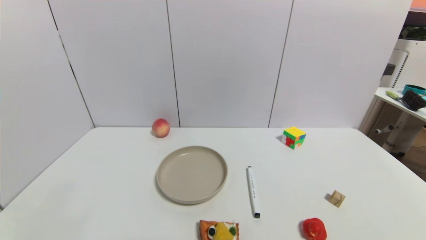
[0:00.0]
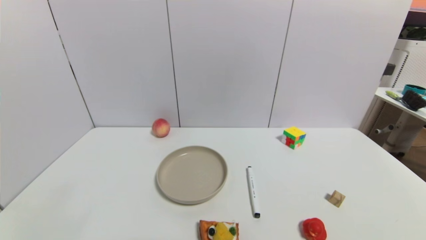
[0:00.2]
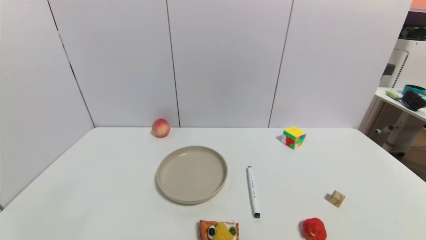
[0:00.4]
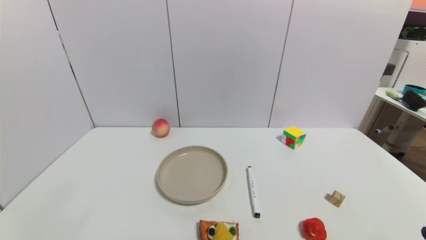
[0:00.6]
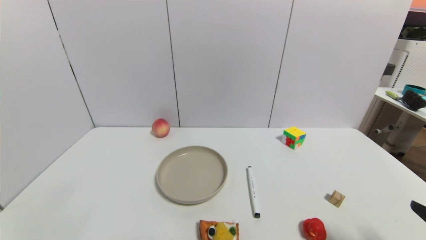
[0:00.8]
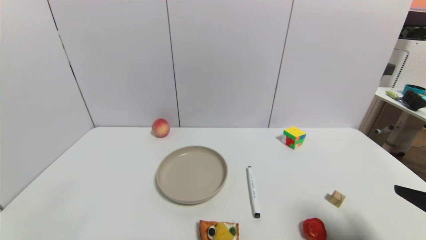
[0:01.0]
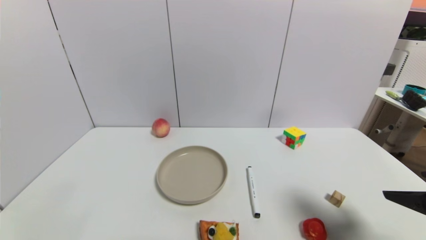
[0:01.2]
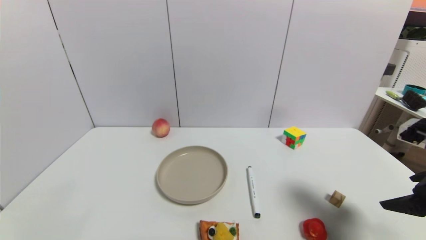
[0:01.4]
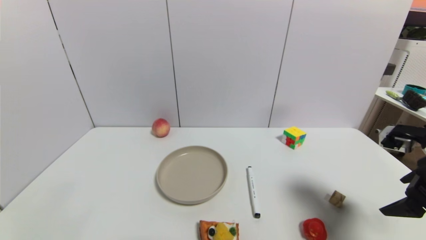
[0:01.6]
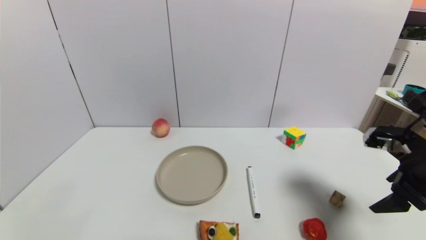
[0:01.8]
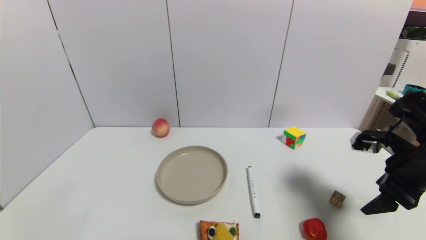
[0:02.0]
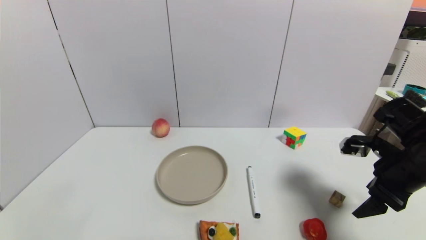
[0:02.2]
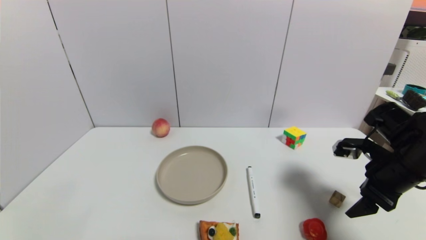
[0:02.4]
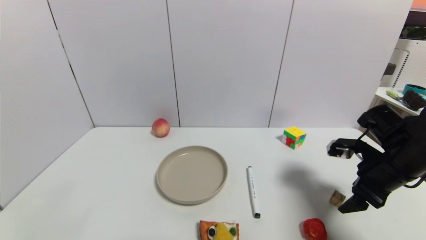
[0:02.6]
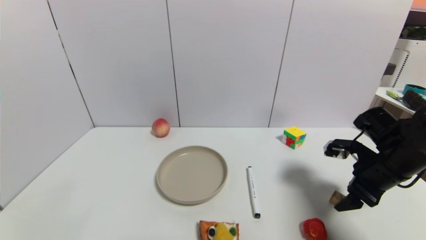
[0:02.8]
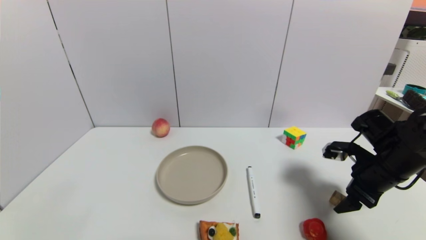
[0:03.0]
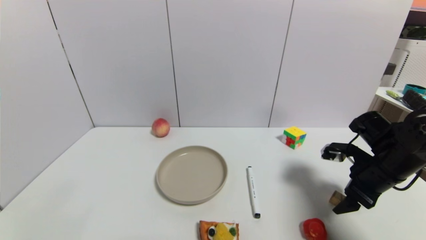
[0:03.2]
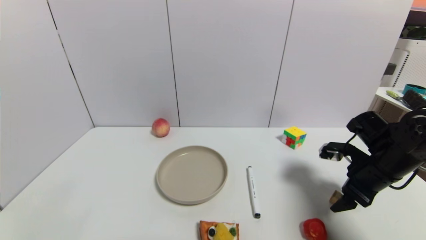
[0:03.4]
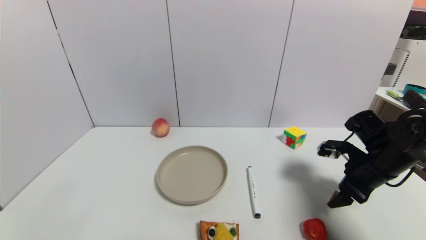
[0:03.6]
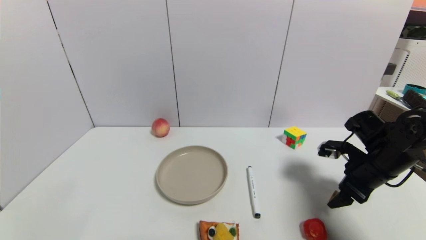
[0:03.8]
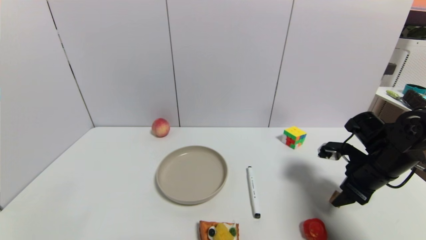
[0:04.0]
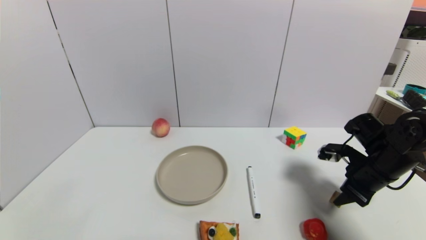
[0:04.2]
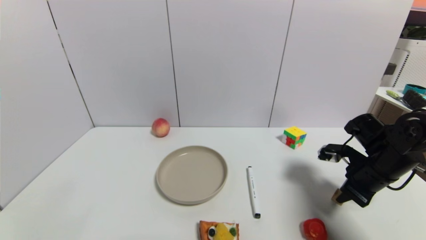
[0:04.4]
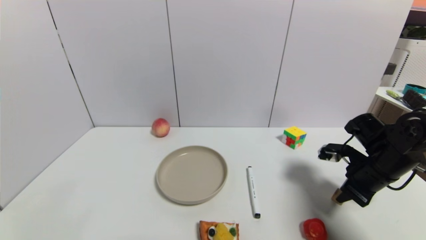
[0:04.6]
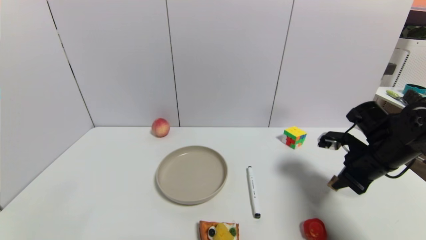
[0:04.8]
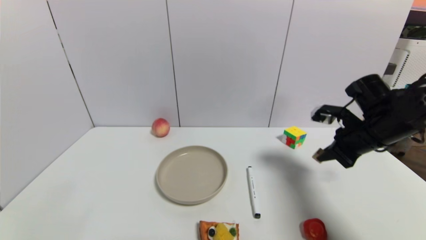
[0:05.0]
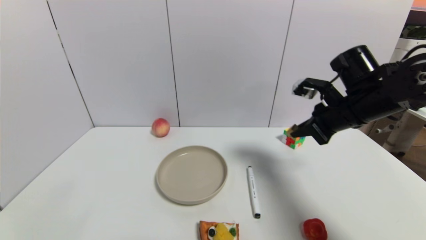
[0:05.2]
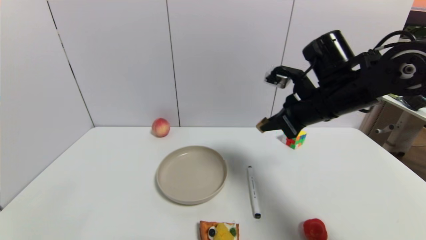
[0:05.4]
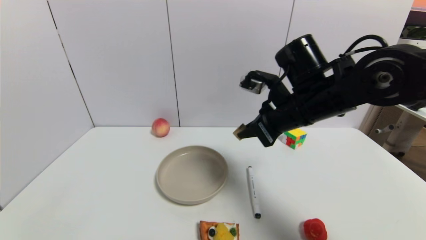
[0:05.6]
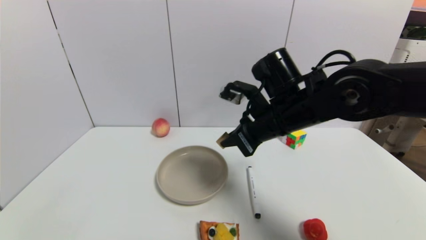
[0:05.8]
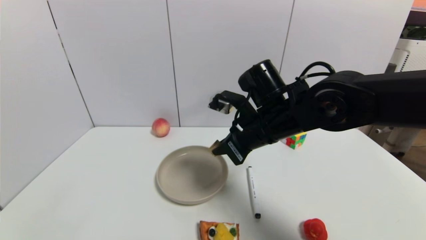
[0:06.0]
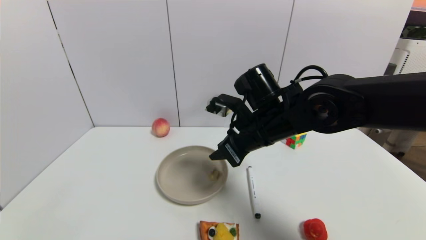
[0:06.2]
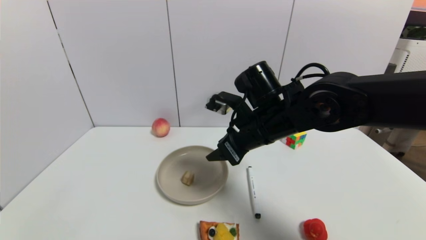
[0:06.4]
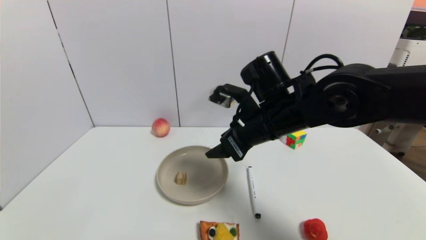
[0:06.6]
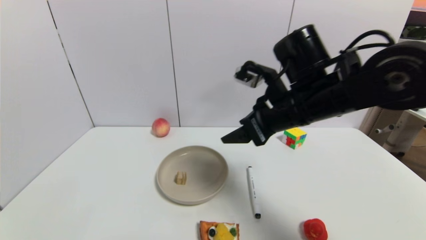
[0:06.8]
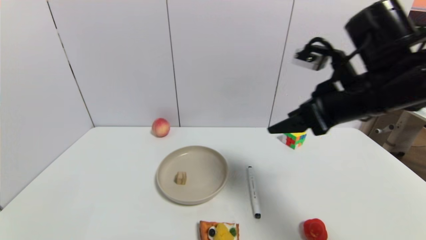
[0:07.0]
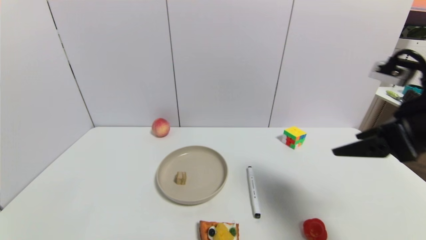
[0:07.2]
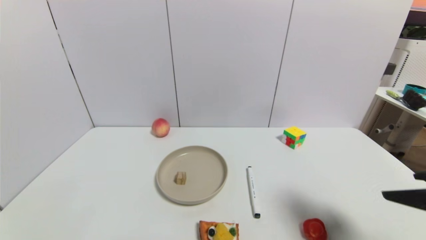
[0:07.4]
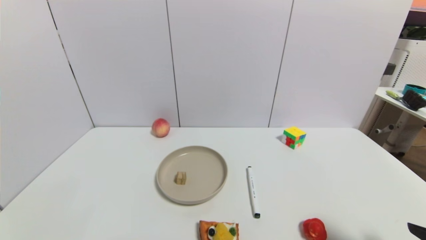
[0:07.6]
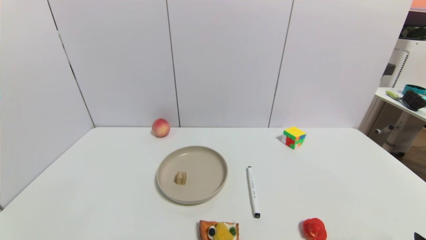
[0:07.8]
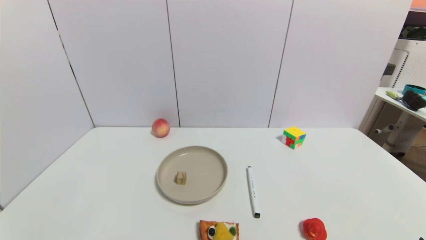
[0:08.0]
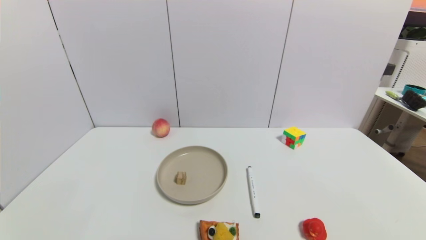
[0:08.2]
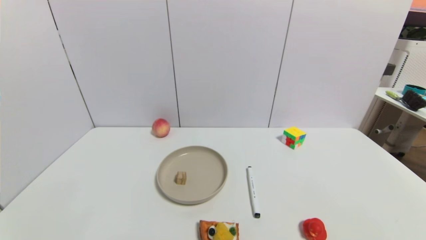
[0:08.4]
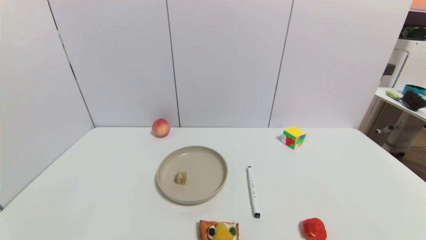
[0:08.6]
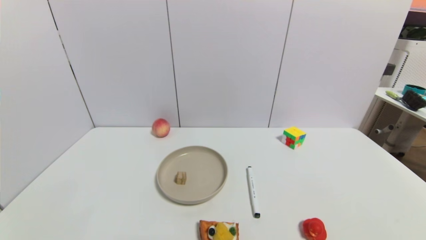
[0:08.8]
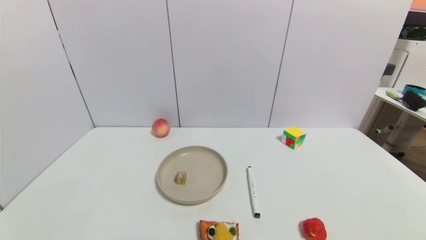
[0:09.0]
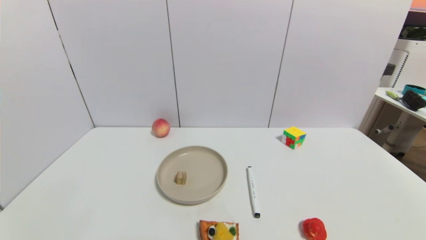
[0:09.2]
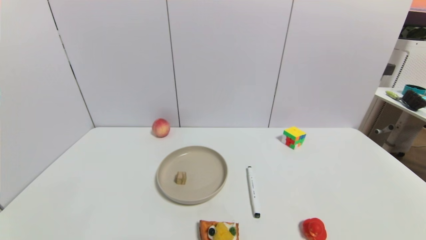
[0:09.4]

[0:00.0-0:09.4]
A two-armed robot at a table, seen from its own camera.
Task of the whole recording: use a gripper to pick the target object and place on the brown plate.
Step, 0:00.0 to 0:04.4: Grasp the square wooden block with the right gripper.
Step, 0:04.6 to 0:06.6: Place the square wooden block on the brown plate with the right gripper.
0:00.0 to 0:01.6: The right gripper shifts approximately 25 cm forward and upward.
0:01.6 to 0:03.2: The right gripper is displaced downward and forward by approximately 10 cm.
0:03.2 to 0:04.8: The right gripper closes.
0:04.8 to 0:06.2: The right gripper moves to the left, about 25 cm.
0:06.2 to 0:07.8: The right gripper goes approximately 35 cm backward and to the right, and opens its fingers.
